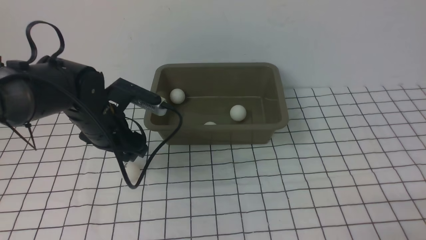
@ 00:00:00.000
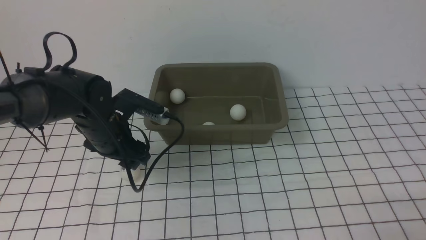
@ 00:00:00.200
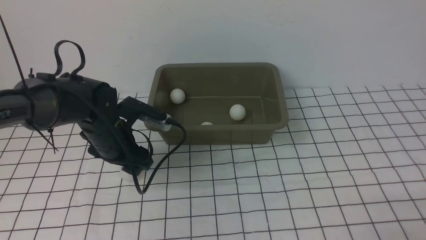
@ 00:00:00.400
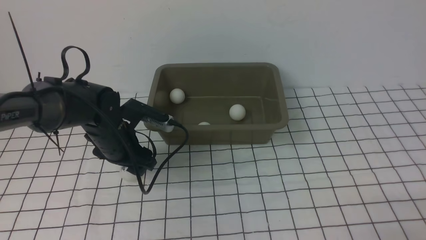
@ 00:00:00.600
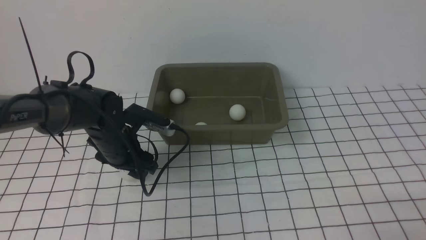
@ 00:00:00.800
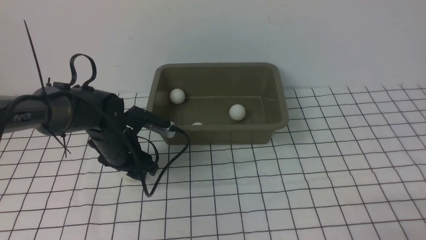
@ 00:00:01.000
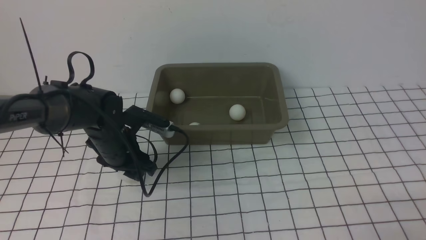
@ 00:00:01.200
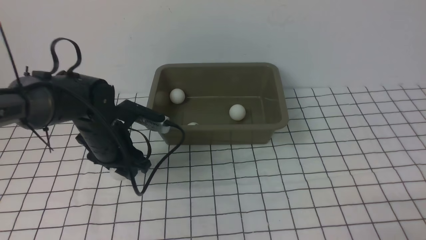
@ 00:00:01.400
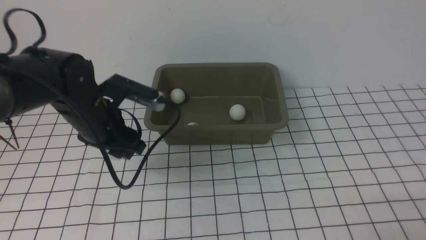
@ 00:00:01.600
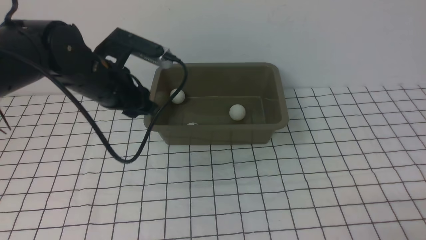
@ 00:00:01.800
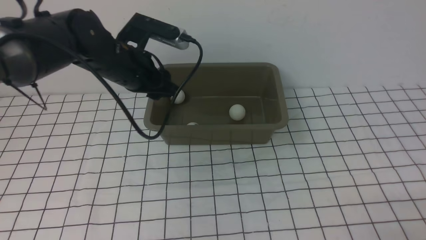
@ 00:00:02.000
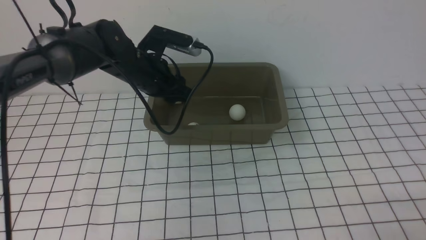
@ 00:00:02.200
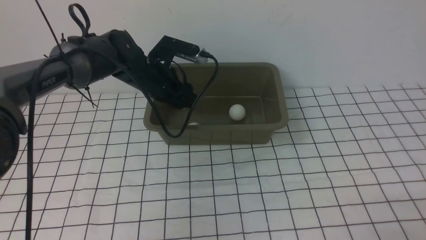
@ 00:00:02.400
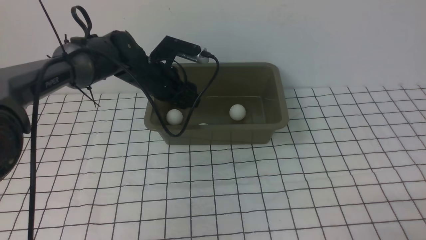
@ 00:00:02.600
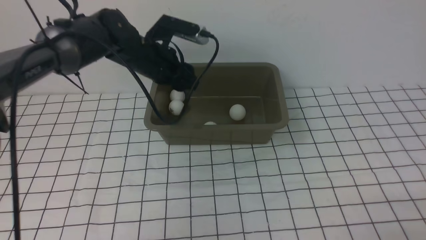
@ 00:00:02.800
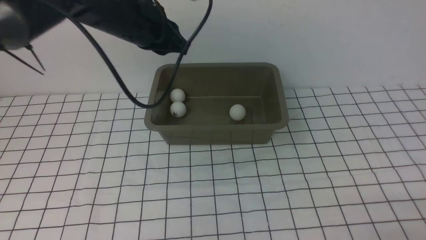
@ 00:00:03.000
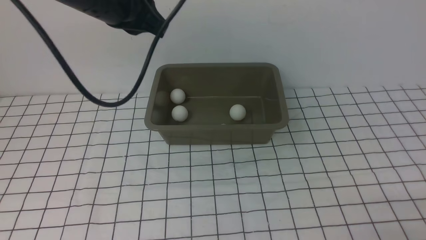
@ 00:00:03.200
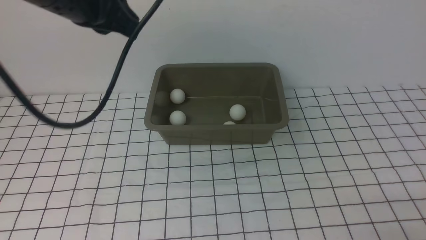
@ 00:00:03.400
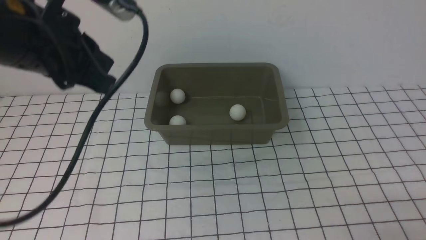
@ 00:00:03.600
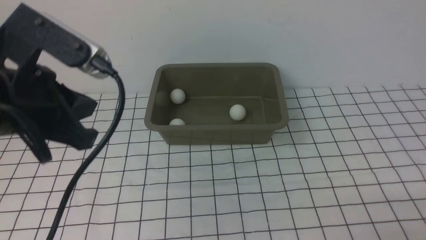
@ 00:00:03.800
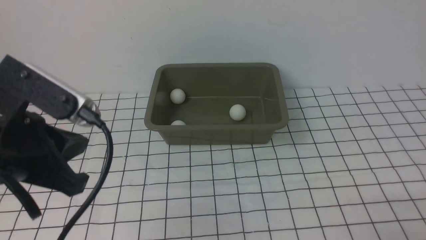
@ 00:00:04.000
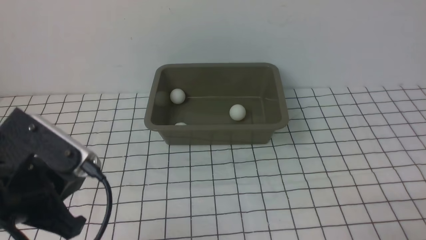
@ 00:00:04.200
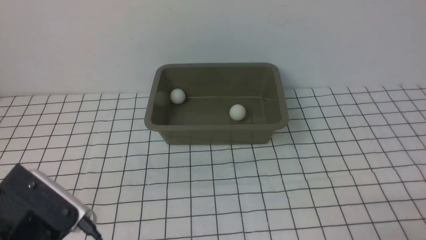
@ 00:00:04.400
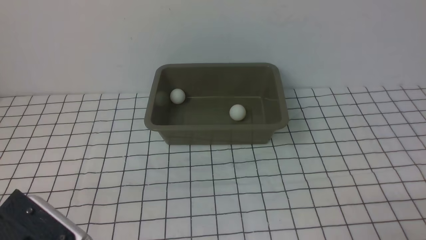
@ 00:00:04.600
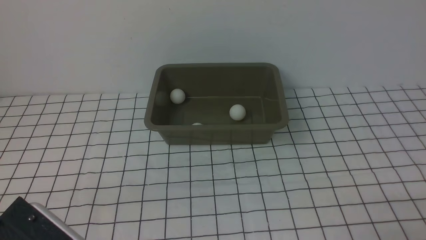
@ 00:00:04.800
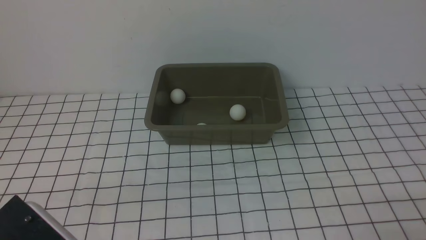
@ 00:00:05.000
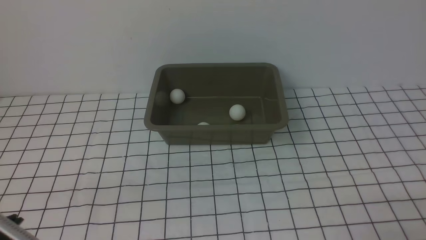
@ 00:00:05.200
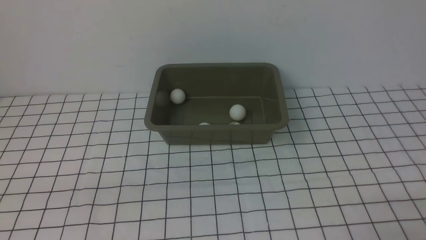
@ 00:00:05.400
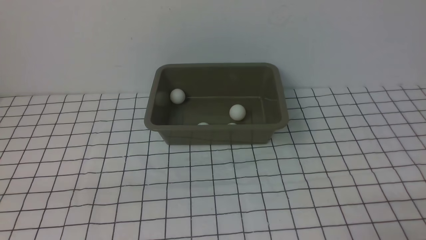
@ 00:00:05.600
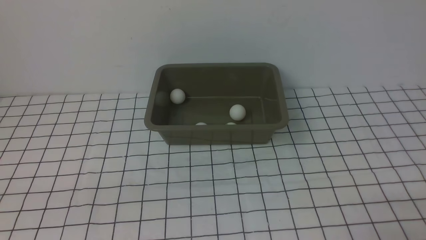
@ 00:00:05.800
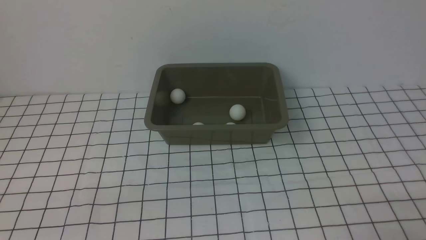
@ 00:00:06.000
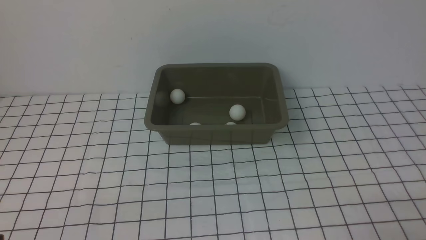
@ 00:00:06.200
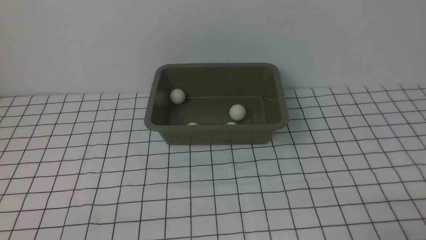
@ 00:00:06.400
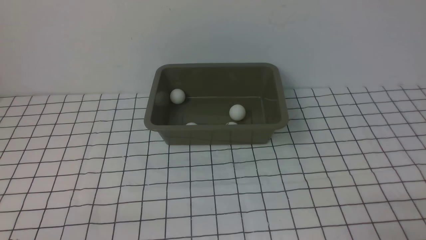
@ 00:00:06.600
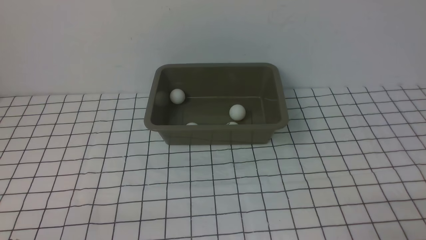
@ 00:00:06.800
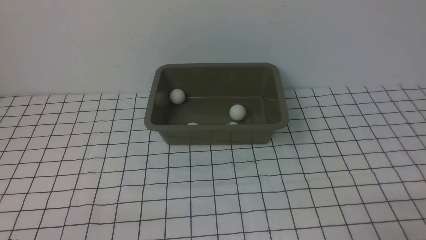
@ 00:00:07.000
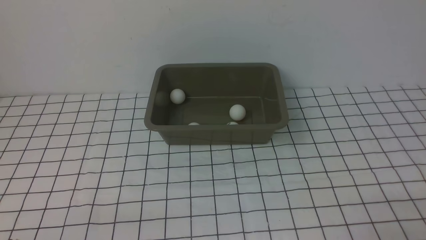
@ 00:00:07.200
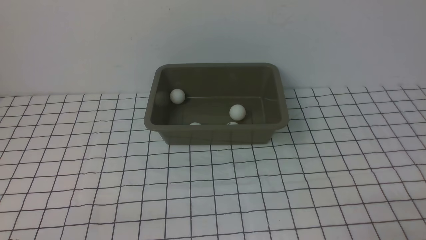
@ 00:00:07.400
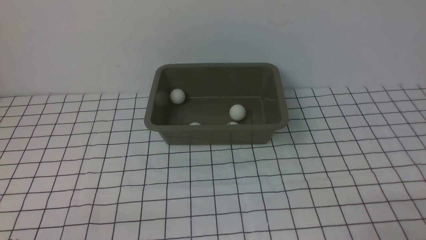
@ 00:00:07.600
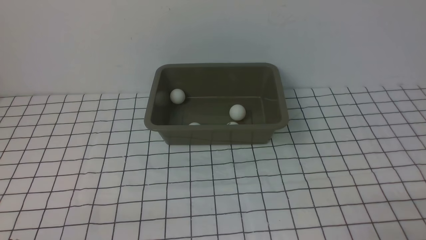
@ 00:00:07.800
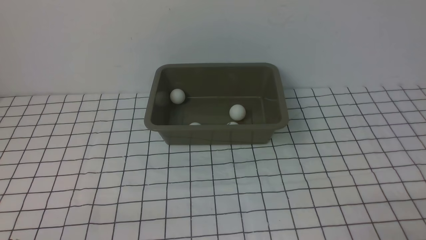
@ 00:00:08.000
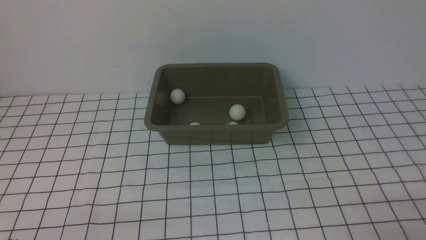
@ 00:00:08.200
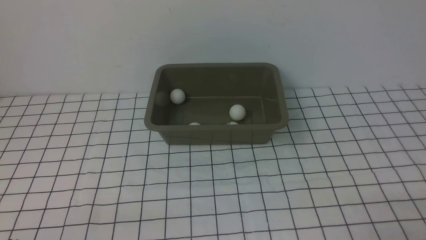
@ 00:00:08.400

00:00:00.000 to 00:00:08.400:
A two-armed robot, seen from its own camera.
Step, 00:00:00.000 to 00:00:01.400: use the left arm to clamp the table tennis ball closest to it.
Step, 00:00:01.600 to 00:00:02.600: use the left arm to put the table tennis ball into the box.
00:00:01.400 to 00:00:02.800: The left gripper shifts approximately 15 cm forward, upward and to the right.
00:00:02.800 to 00:00:04.200: The left gripper heads backward, covering some 30 cm, and closes.
00:00:04.200 to 00:00:05.600: The left gripper goes some 10 cm backward and to the left.
00:00:07.000 to 00:00:08.400: The two grippers keep their place.
